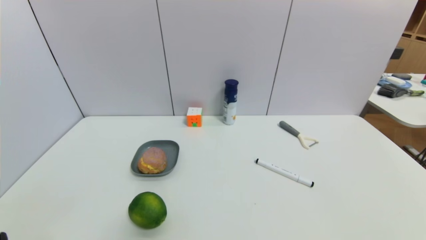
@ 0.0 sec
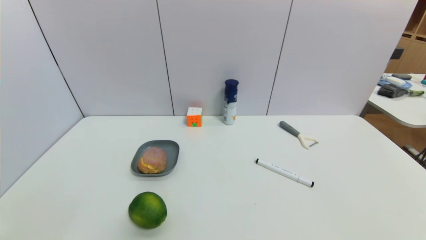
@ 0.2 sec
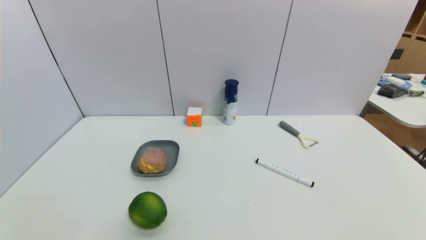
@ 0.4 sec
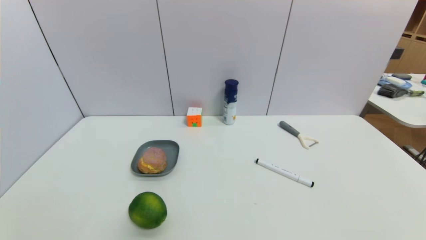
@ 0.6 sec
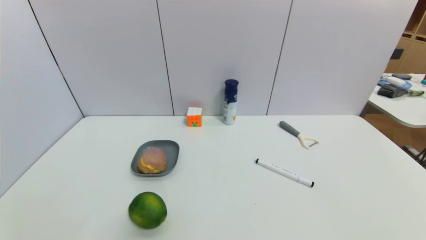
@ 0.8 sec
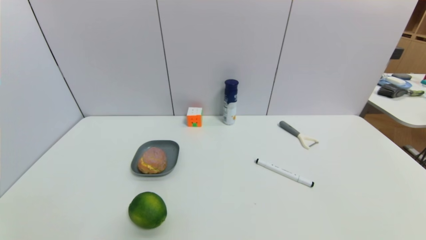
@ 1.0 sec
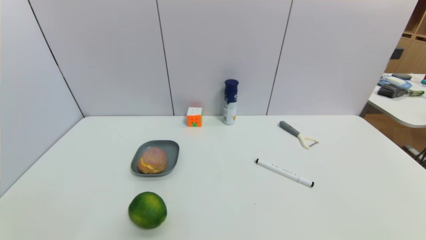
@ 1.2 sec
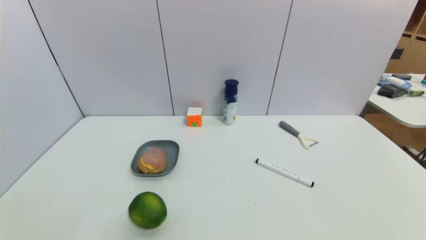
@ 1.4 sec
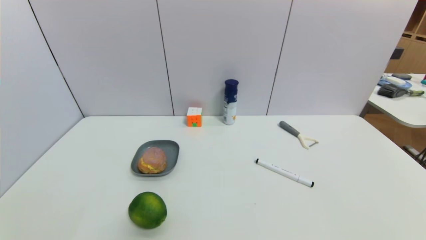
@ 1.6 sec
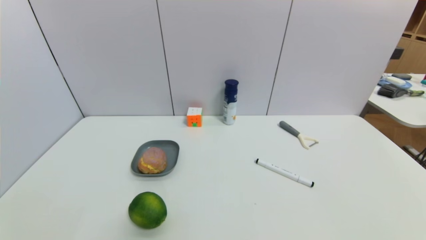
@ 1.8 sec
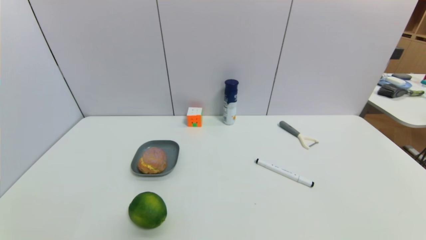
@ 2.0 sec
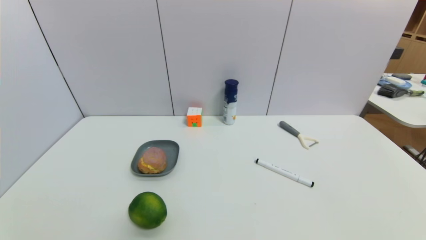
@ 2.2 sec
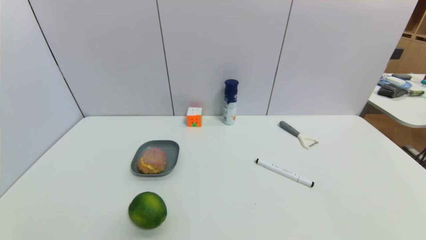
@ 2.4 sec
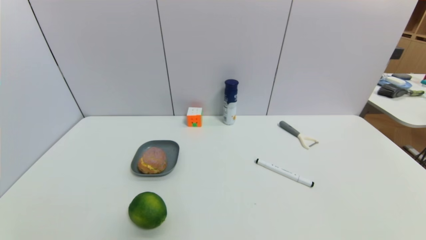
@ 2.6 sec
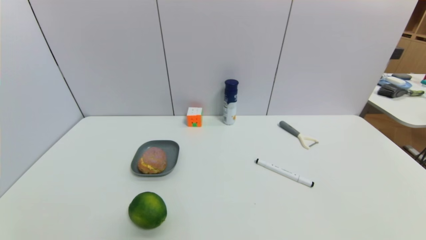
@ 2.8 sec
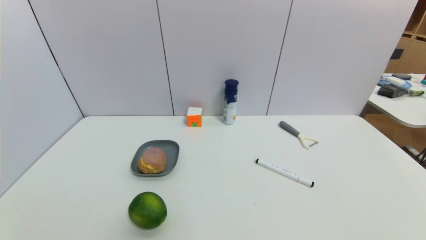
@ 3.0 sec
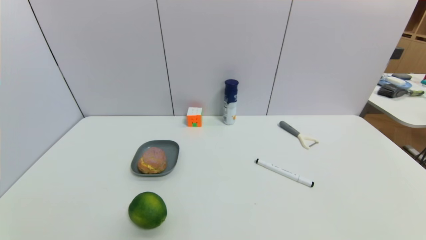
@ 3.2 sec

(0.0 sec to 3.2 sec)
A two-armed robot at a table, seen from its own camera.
Task of the whole recording: use a gripper to pick the target object and place on the dish.
1.6 sec - 3.2 sec: Both grippers stay about where they are.
